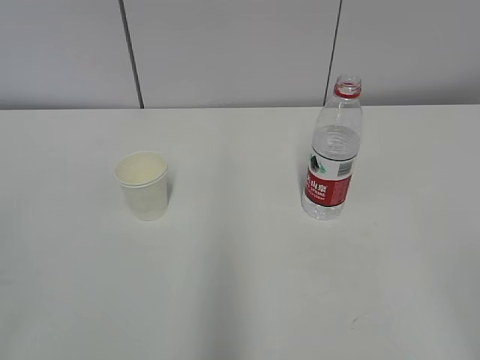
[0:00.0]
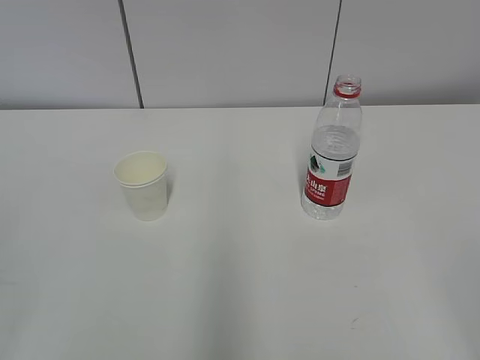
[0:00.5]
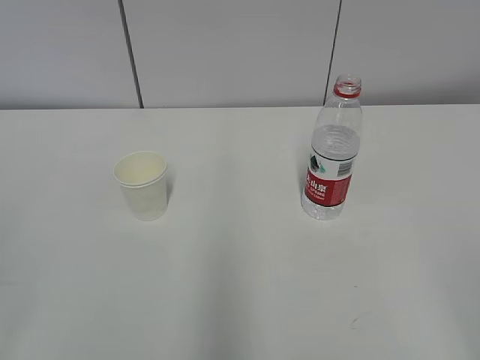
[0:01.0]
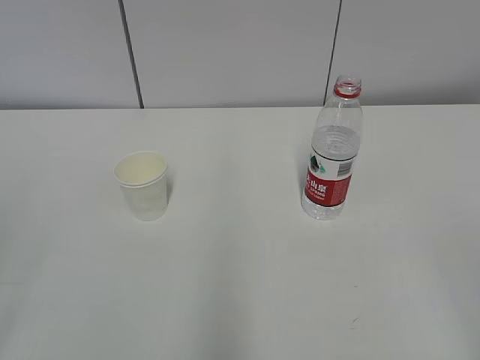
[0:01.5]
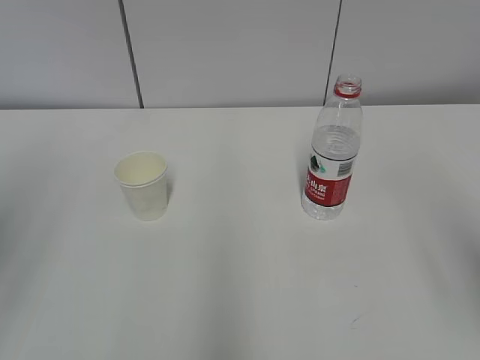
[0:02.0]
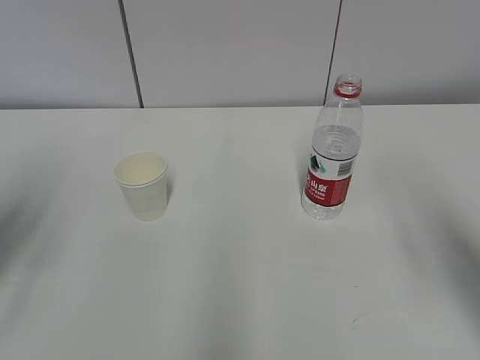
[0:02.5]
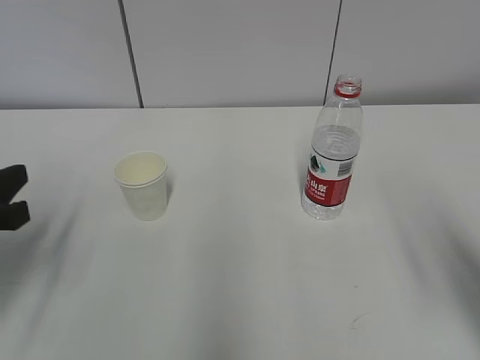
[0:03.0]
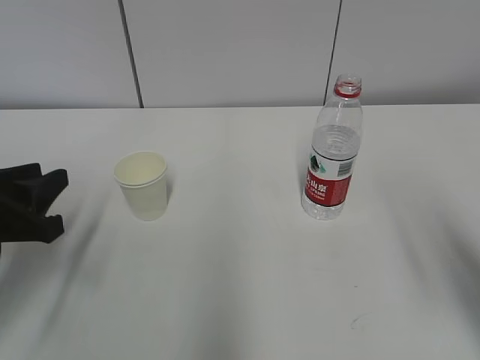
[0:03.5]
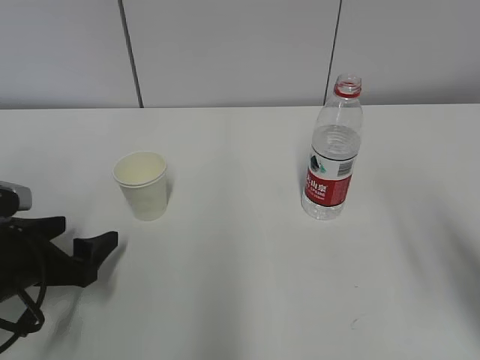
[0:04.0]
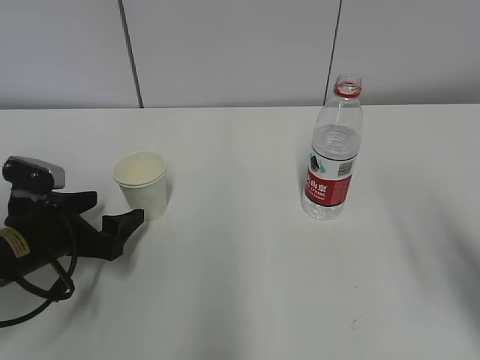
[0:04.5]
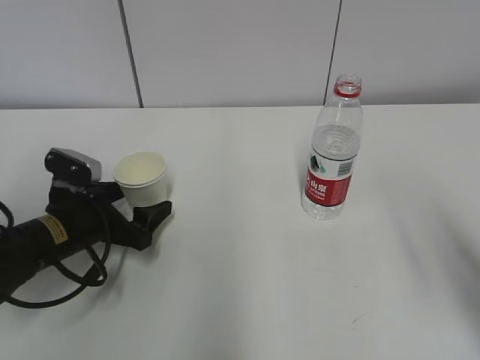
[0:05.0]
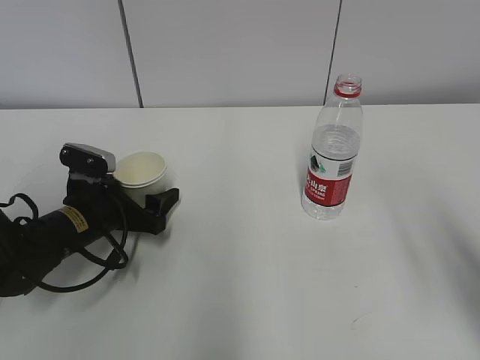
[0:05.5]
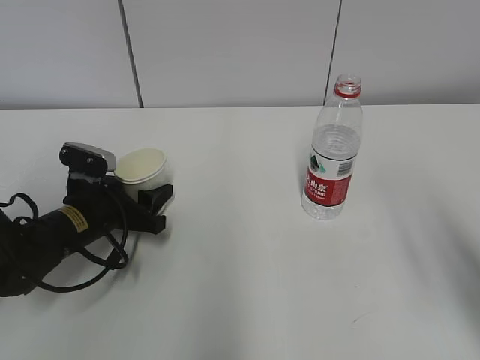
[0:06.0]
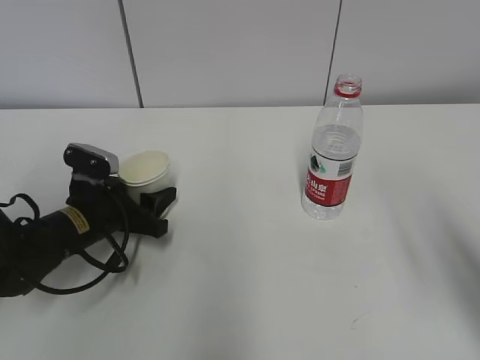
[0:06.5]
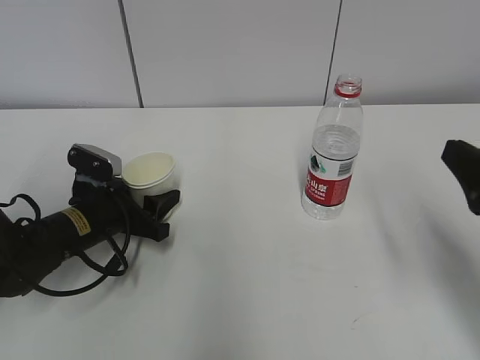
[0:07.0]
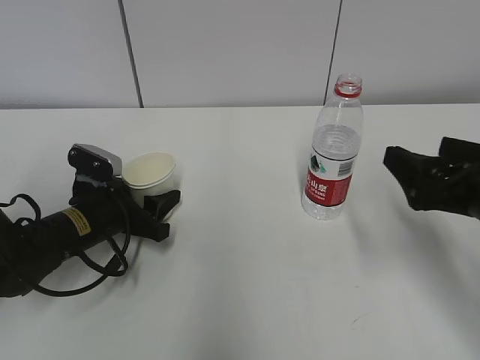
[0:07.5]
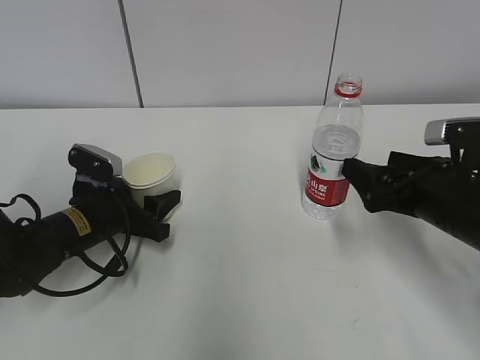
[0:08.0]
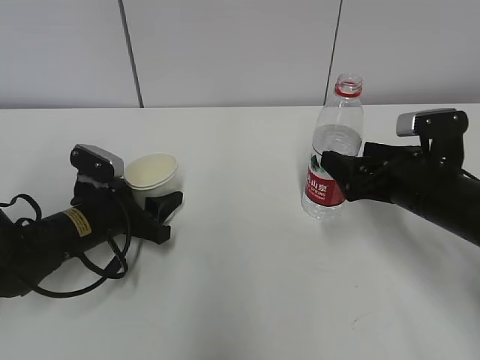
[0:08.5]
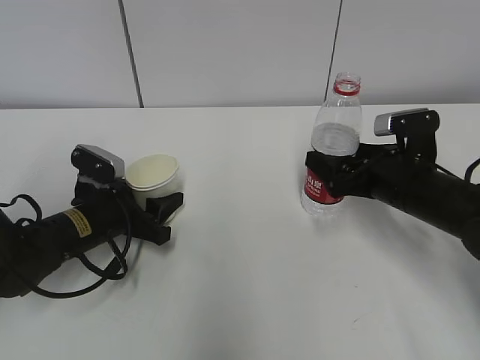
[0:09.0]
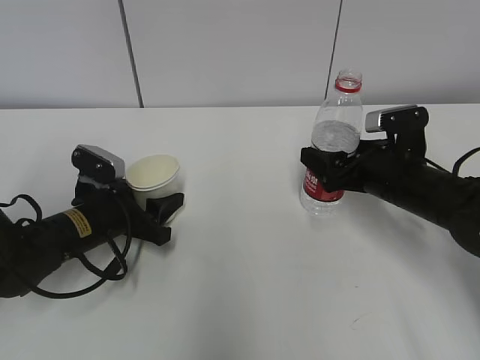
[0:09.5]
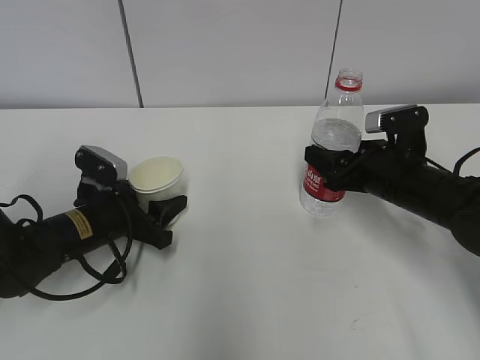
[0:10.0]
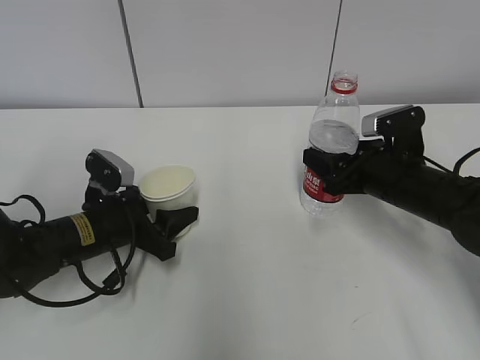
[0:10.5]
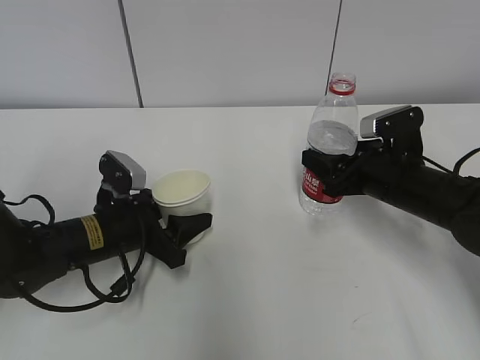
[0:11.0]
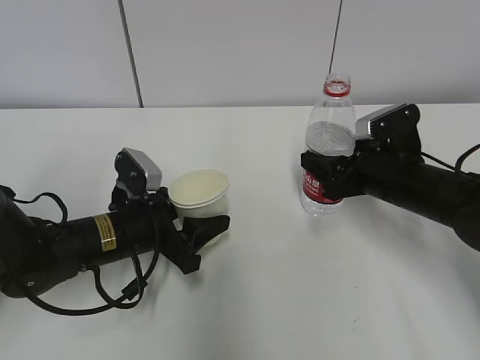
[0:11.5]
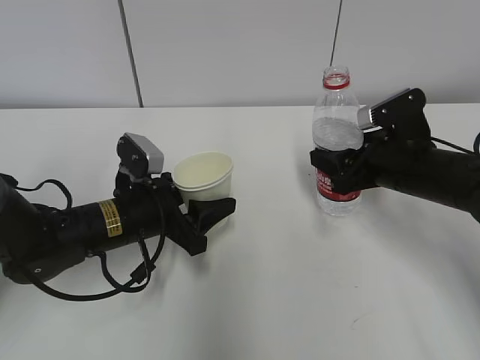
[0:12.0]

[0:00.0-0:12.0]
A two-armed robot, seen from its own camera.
Step, 0.0 to 8.5 s: Grab the paper cup with the left hand.
Step, 9.0 to 9.5 s: Grab the water bottle with the right hand.
2.0 to 4.0 s: The left gripper is displaced downward and forward by some 25 cm, and opens its fingers.
4.0 to 6.0 s: The left gripper shifts approximately 10 cm forward and to the right, and closes up.
6.0 to 8.0 s: The right gripper travels forward and downward by roughly 15 cm, and opens up.
8.0 to 10.0 s: The right gripper shifts approximately 10 cm forward, and closes its fingers.
10.0 to 12.0 s: The left gripper goes roughly 5 cm to the right.

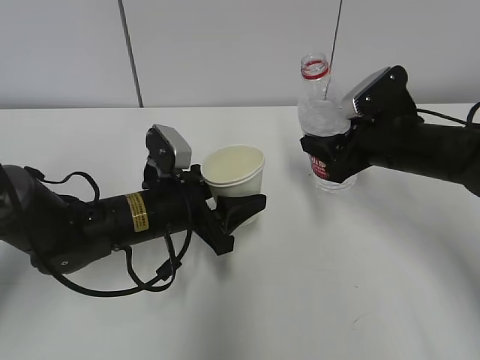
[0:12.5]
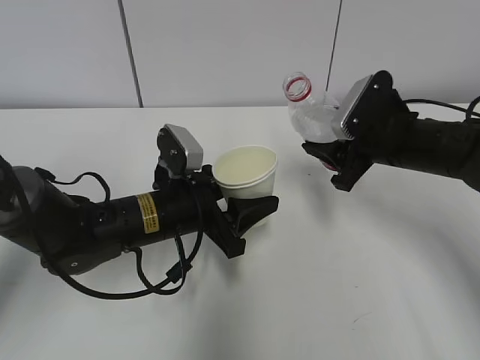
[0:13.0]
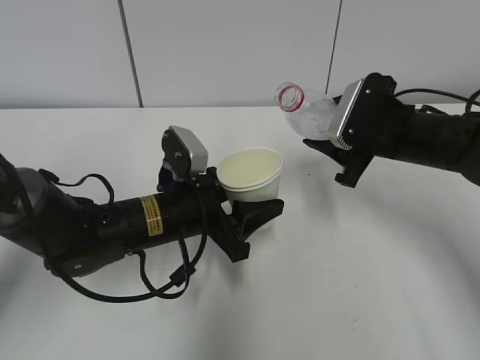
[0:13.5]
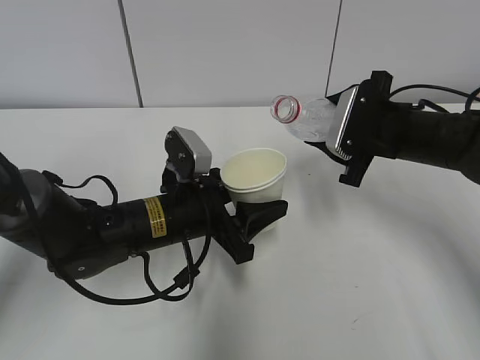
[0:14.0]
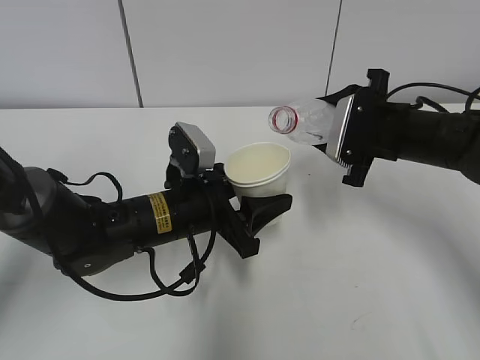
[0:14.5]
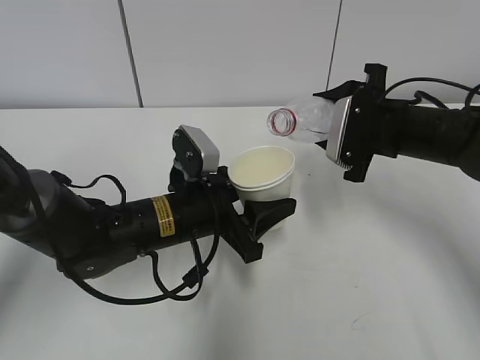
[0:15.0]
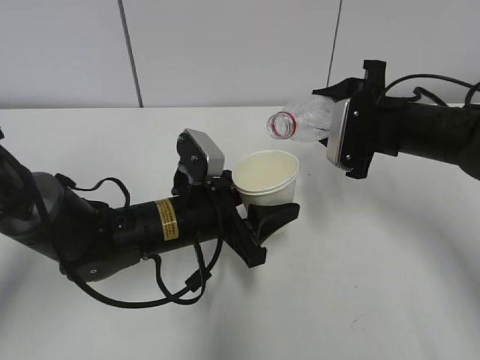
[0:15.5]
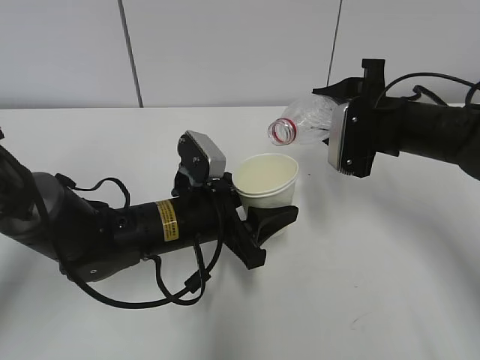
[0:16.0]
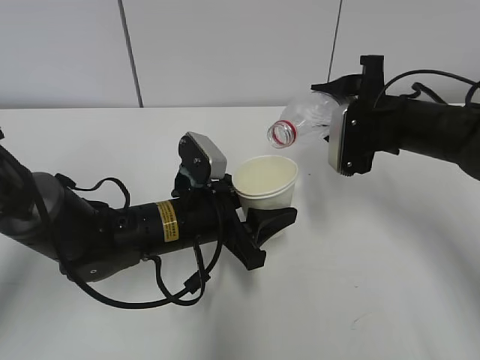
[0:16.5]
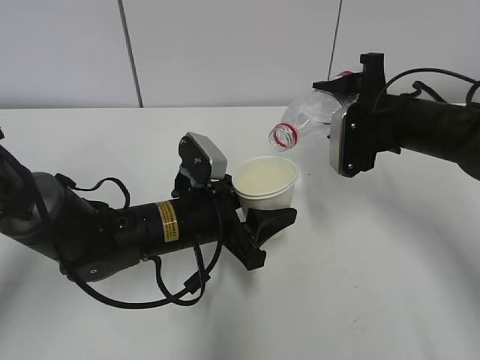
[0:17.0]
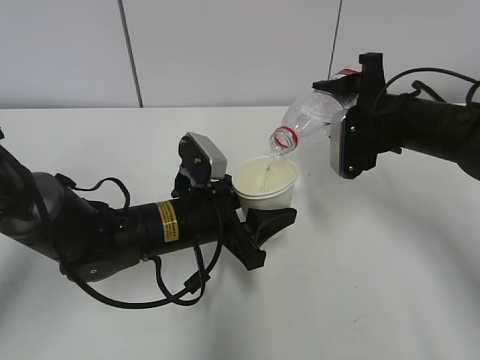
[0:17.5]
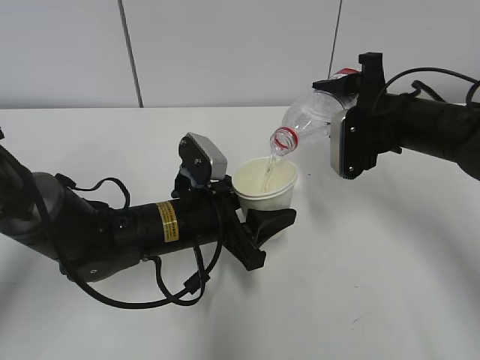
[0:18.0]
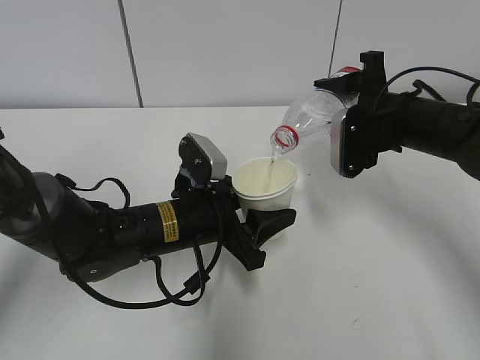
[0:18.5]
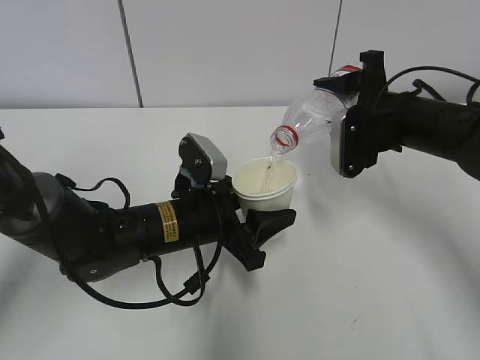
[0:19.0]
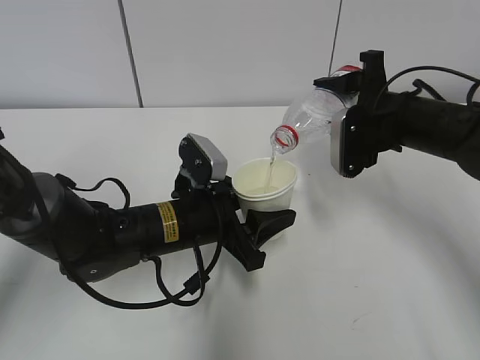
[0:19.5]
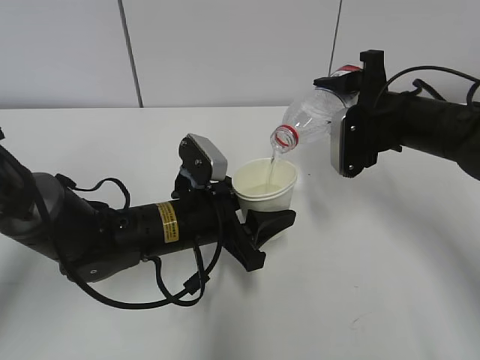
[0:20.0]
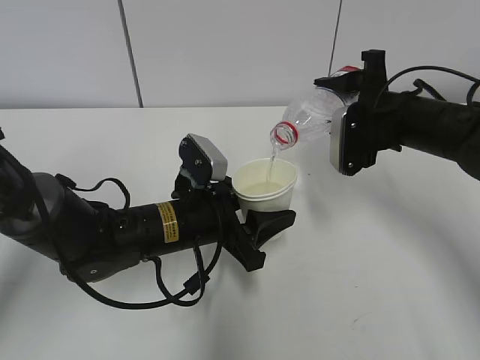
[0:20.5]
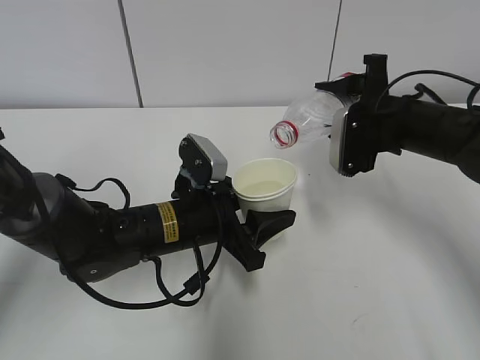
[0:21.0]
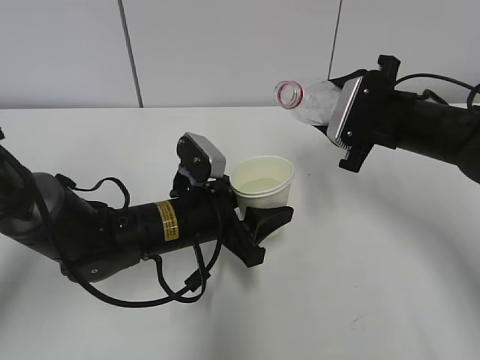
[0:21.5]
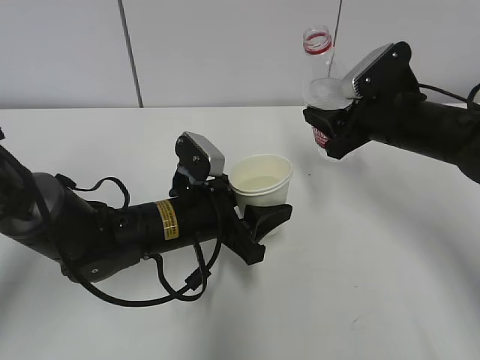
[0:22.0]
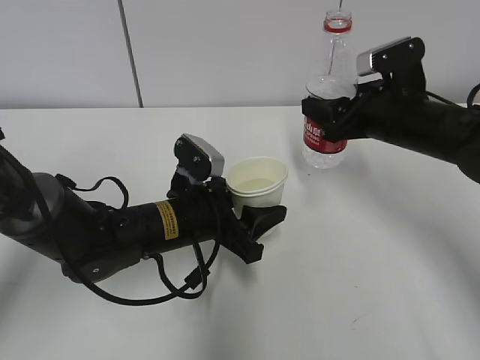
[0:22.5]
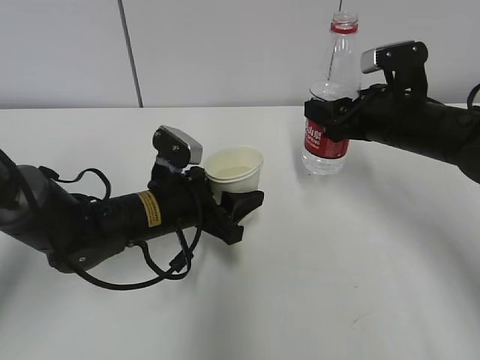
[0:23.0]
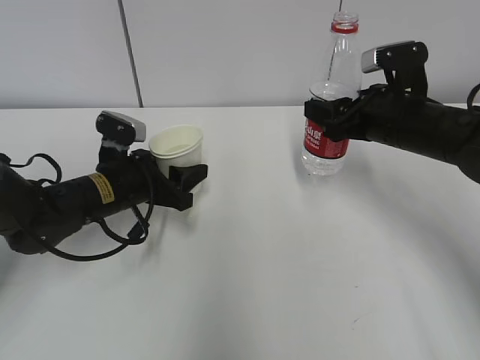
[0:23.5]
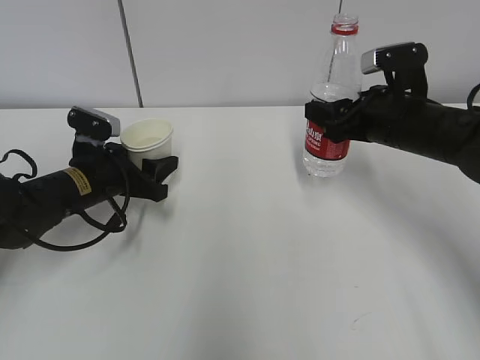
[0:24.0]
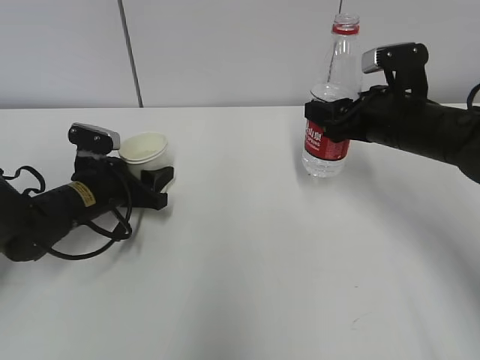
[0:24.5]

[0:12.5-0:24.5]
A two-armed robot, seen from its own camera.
Step, 14.5 to 17.0 s: Fill water with the left hand.
Step, 14.5 to 17.0 s: Pour water with the right hand.
Step, 17.5 to 18.5 s: Collect water with the right hand.
Step, 19.0 to 21.5 s: Place the paper cup with the left hand.
14.5 to 16.5 s: The grippers move only a little.
16.5 to 18.5 s: The grippers stay close to where they were, moving slightly.
18.5 to 20.5 s: Both grippers stay put.
22.5 to 24.5 s: The left gripper shifts some 15 cm to the left and forward.

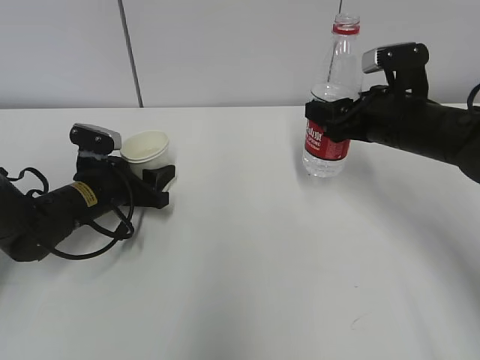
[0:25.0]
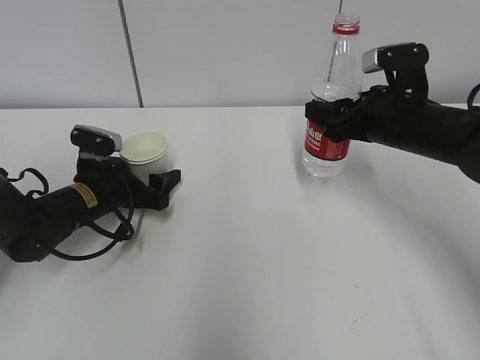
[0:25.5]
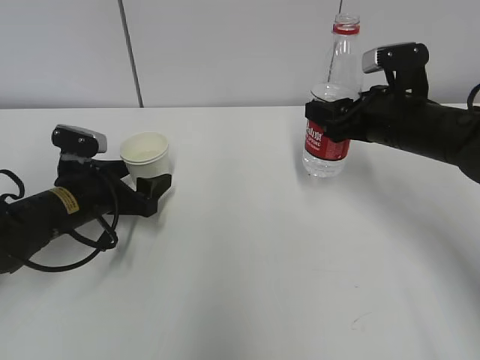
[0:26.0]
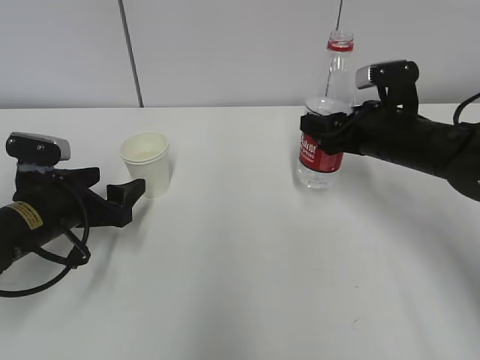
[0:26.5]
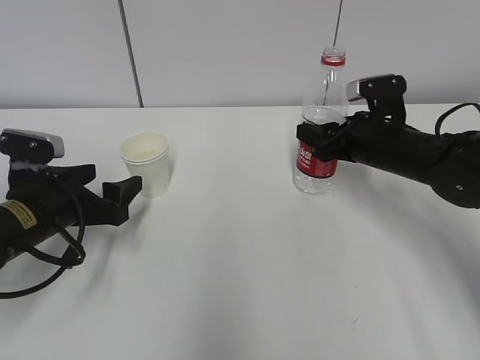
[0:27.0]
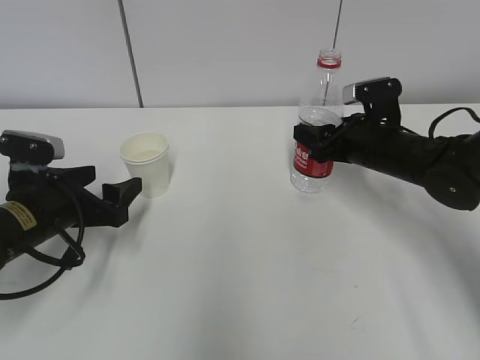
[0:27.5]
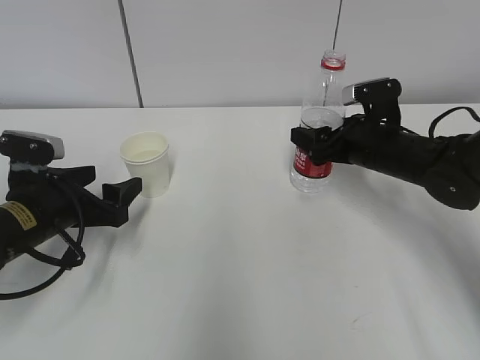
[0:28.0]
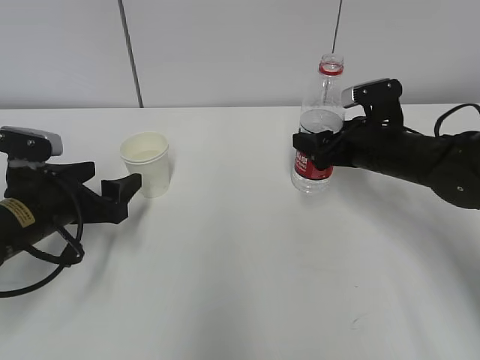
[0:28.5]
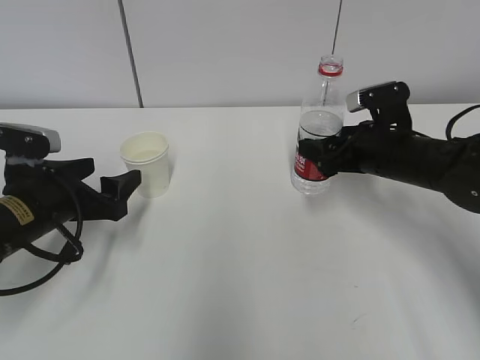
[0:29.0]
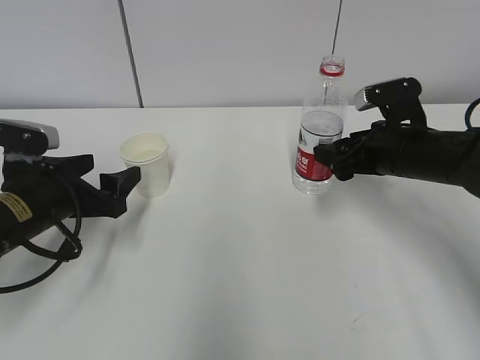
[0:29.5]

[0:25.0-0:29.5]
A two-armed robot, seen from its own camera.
25.0 to 27.0 s: The right gripper changes place by approximately 5 cm. The left gripper moves backward, roughly 10 cm, and opens.
27.0 to 29.5 s: The right gripper opens.
